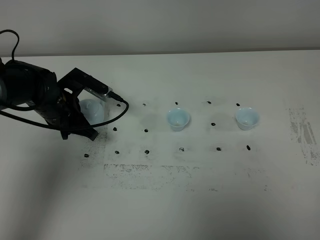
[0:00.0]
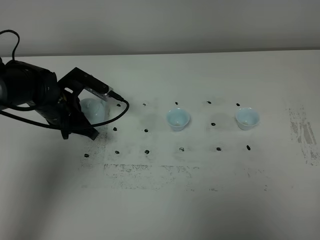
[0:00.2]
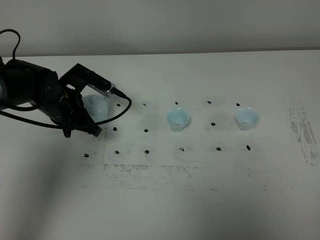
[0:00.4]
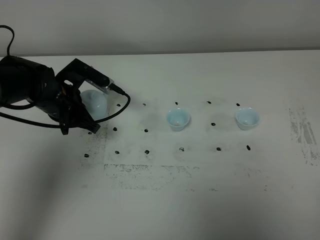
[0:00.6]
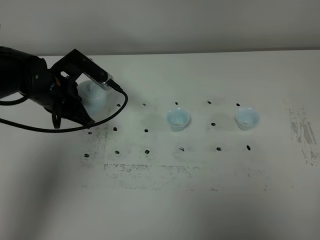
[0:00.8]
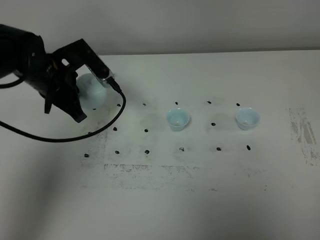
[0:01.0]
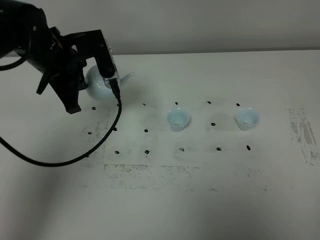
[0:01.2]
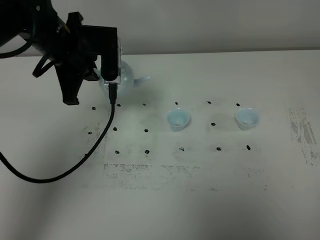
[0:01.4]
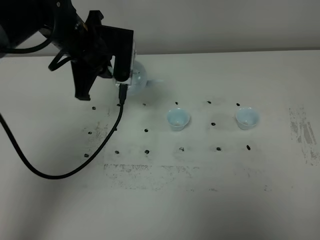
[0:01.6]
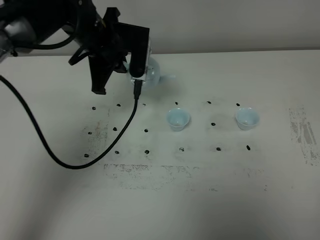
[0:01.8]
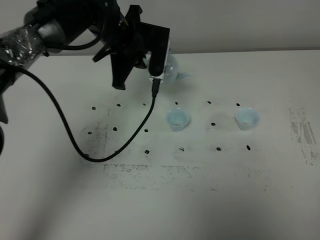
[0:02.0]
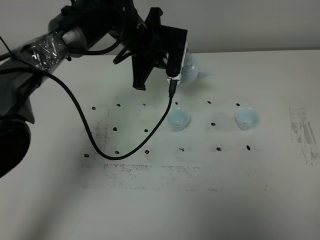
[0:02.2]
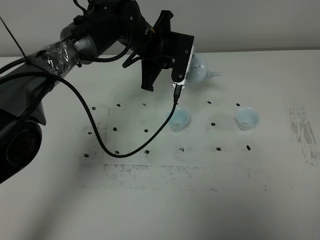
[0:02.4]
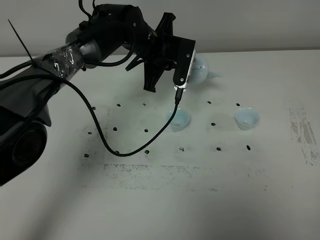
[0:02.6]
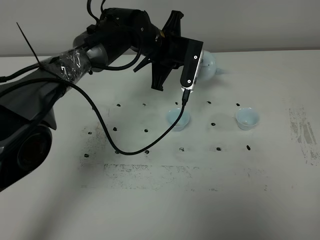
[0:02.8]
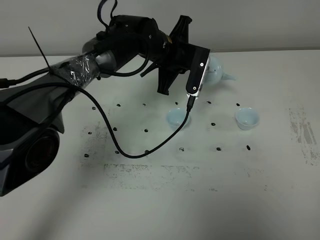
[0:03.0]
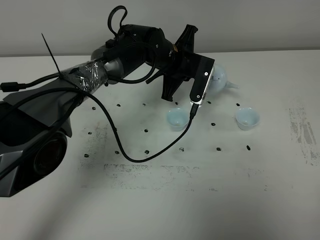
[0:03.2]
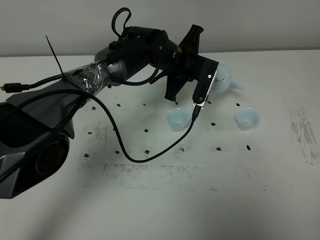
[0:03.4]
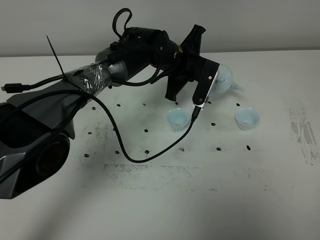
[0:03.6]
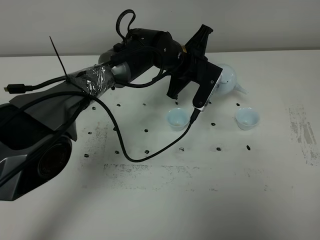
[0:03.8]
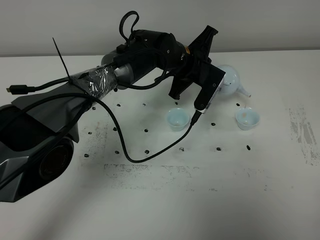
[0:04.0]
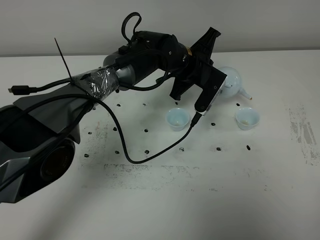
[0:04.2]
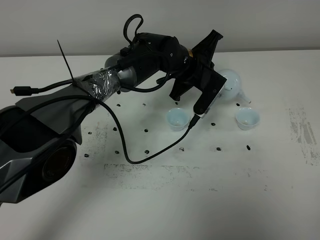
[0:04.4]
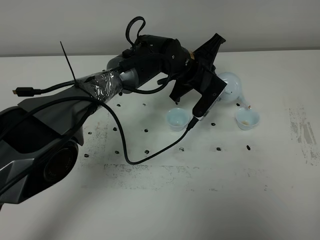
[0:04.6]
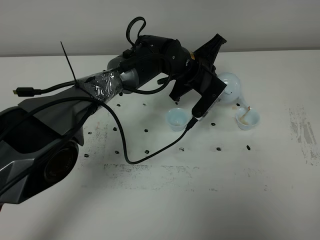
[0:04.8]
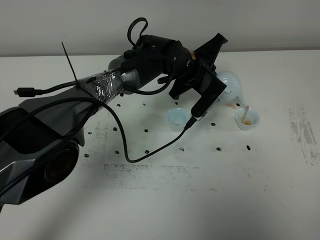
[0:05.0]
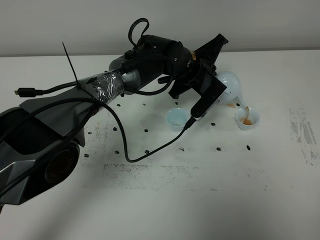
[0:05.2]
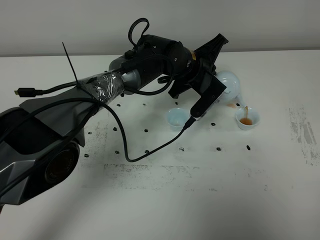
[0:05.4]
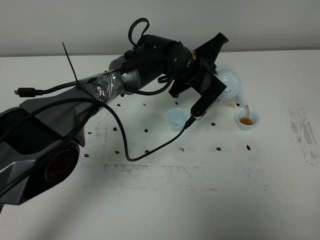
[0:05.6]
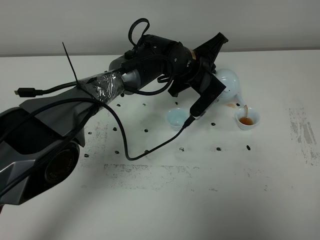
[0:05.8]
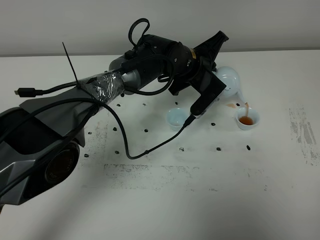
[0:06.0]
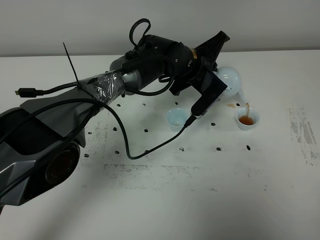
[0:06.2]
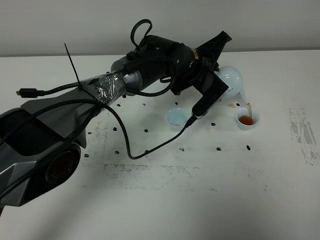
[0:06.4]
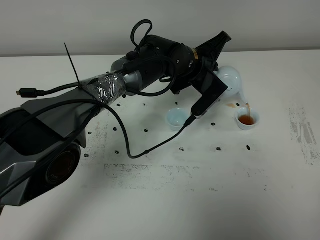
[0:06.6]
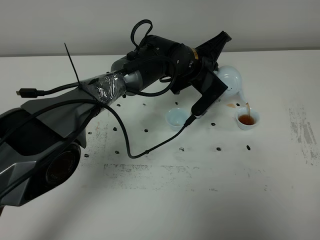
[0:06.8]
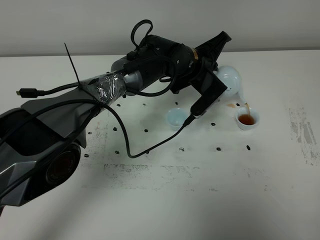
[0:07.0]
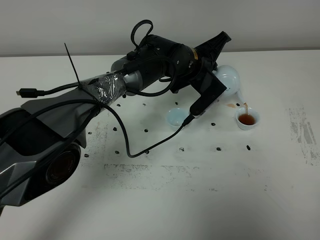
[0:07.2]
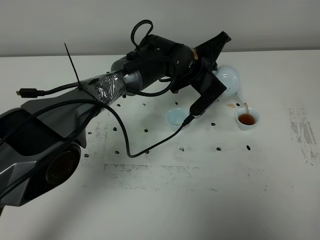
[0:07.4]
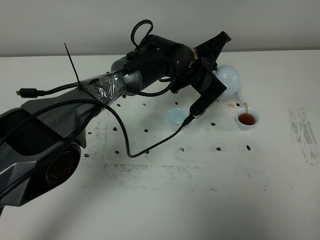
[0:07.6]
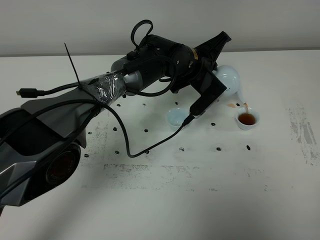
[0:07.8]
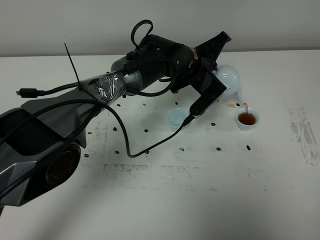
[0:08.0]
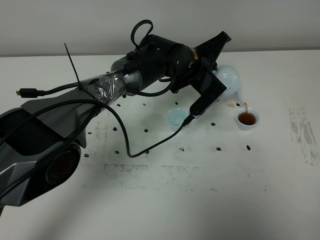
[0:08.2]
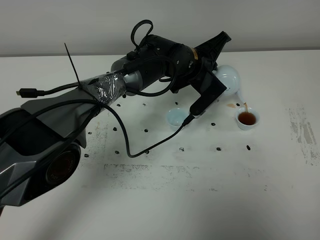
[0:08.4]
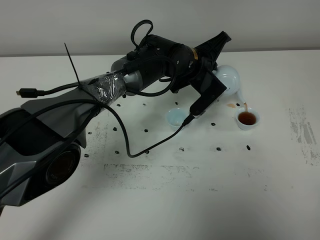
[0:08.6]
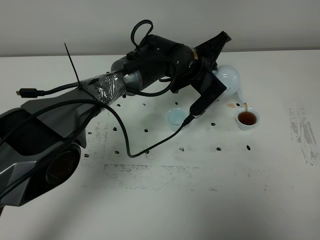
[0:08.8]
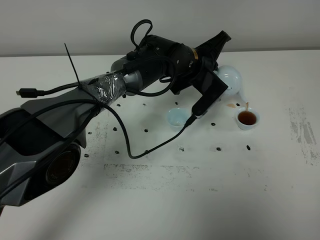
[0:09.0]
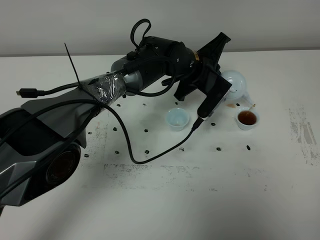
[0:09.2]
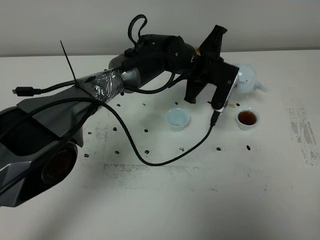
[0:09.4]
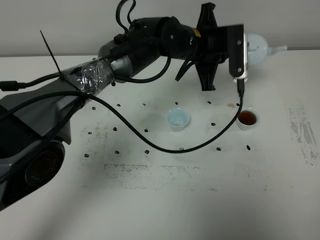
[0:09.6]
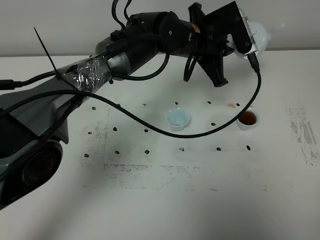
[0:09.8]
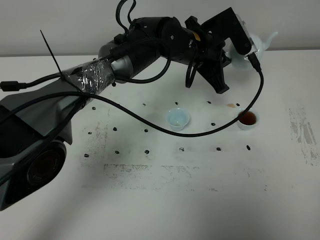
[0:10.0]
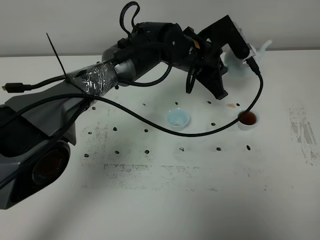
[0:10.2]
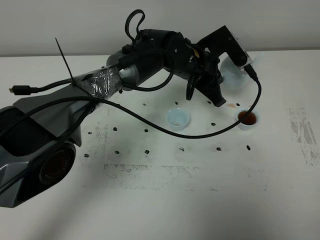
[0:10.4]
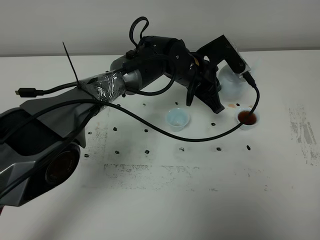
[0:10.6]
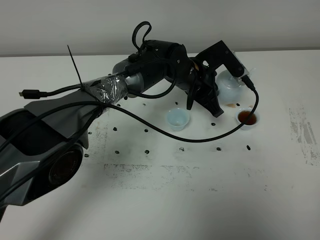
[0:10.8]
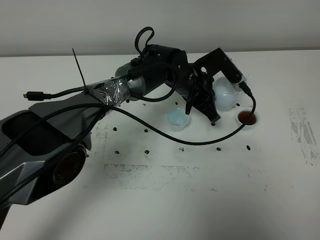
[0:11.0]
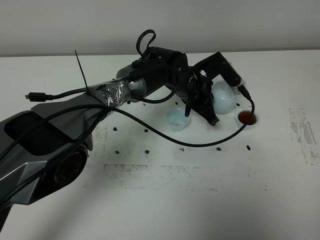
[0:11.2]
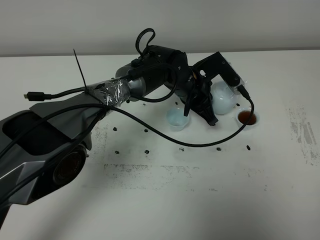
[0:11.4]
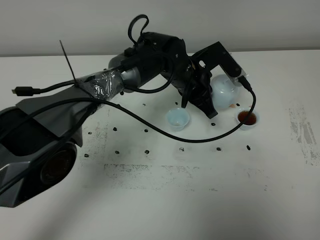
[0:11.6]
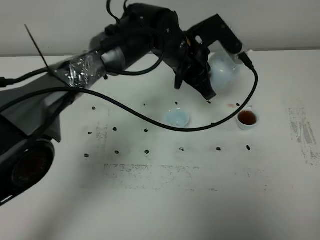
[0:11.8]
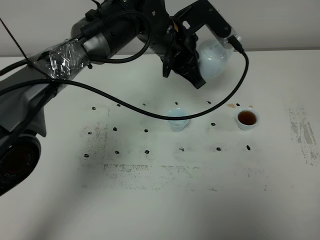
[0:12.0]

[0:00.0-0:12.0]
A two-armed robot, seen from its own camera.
Task of the whole recording: grasp the blue porcelain teapot and pour the tea into the two blue porcelain teacups one by one, put the blue porcelain teapot back in its original place.
0:00.0 to 0:01.6: The left gripper goes some 15 cm upward and to the right.
0:01.6 to 0:03.0: The left gripper is displaced to the right, downward and forward by some 15 cm.
0:04.4 to 0:06.0: The grippers make only small movements.
0:06.0 to 0:09.0: The two grippers keep their place.
0:10.4 to 0:12.0: The left gripper is displaced upward by approximately 5 cm.

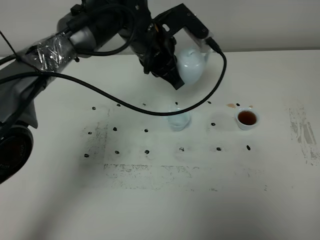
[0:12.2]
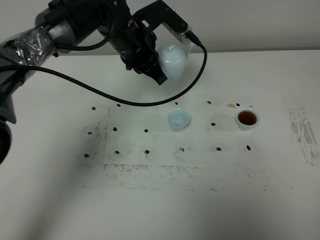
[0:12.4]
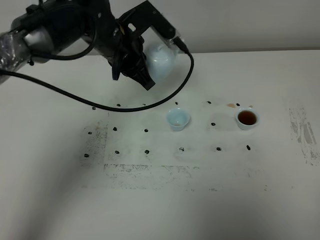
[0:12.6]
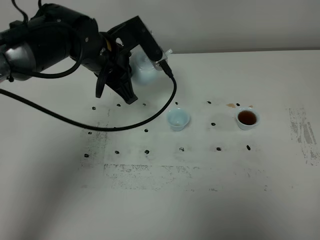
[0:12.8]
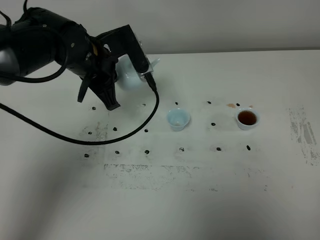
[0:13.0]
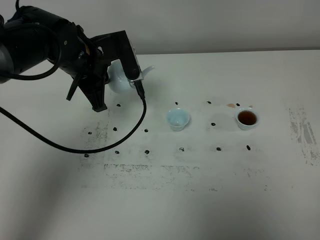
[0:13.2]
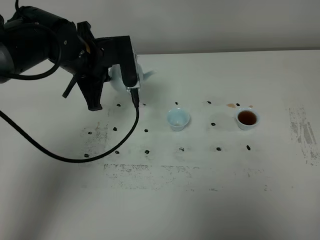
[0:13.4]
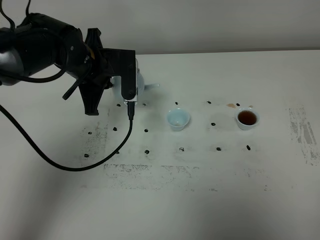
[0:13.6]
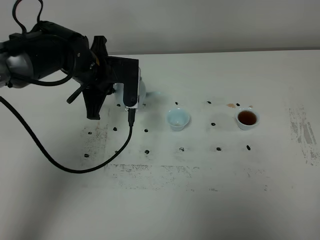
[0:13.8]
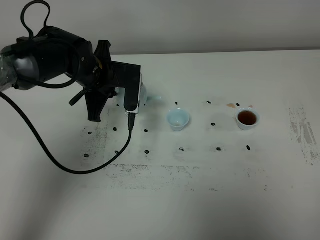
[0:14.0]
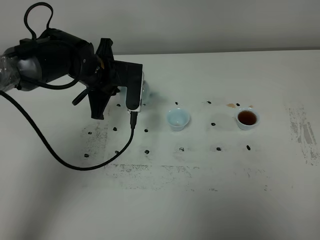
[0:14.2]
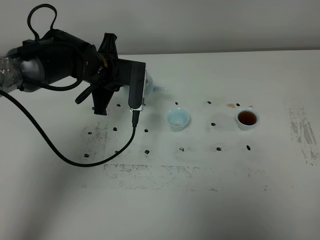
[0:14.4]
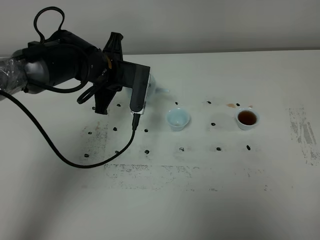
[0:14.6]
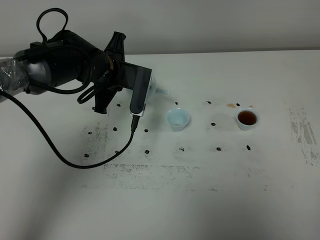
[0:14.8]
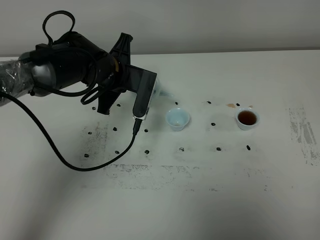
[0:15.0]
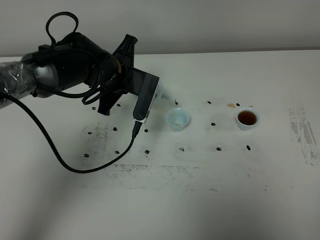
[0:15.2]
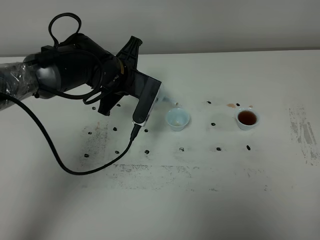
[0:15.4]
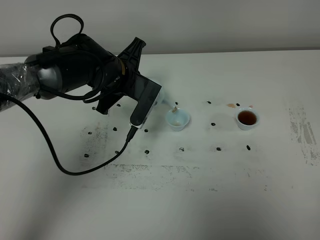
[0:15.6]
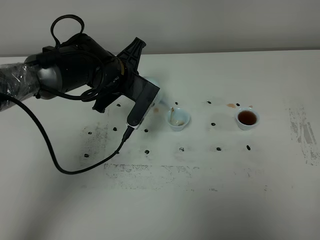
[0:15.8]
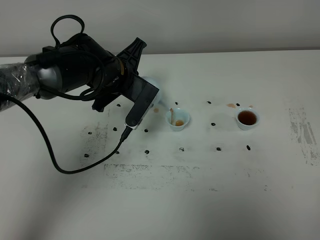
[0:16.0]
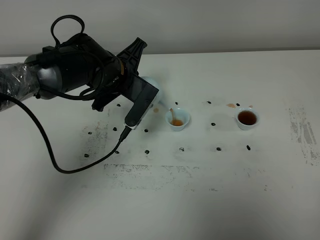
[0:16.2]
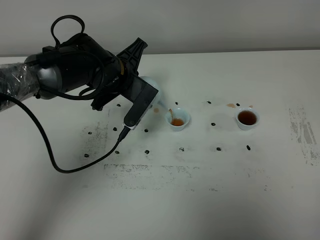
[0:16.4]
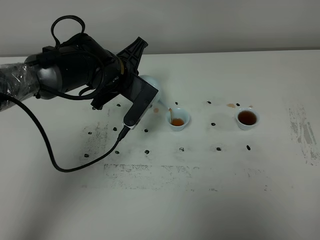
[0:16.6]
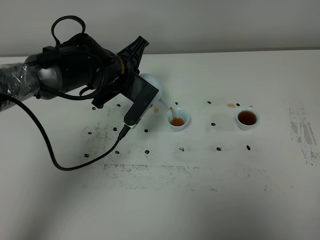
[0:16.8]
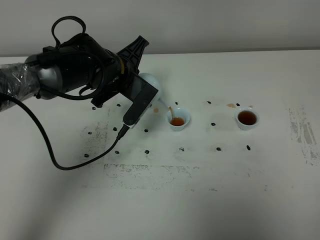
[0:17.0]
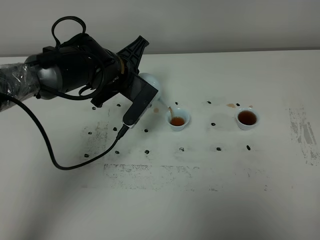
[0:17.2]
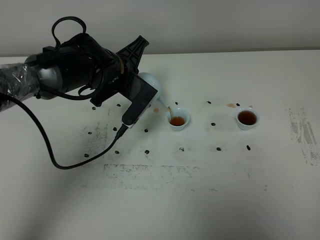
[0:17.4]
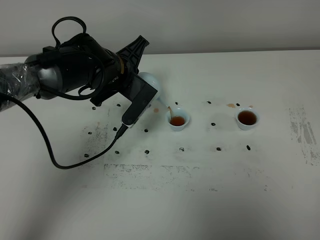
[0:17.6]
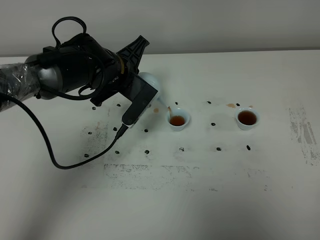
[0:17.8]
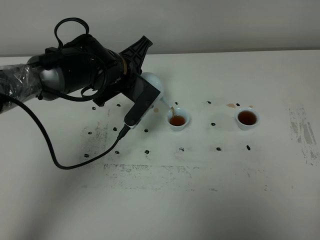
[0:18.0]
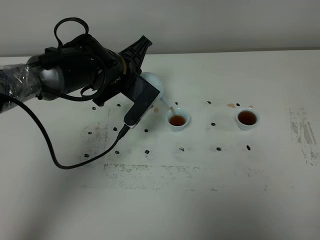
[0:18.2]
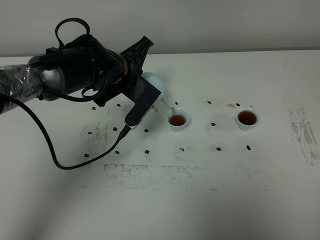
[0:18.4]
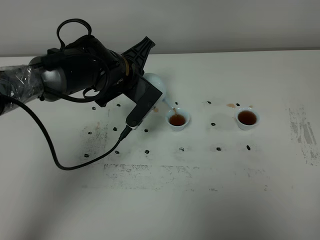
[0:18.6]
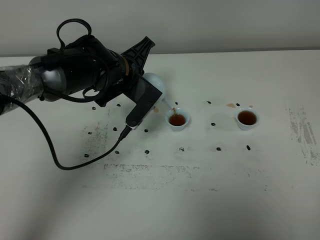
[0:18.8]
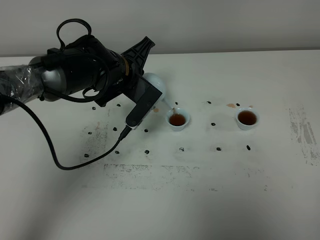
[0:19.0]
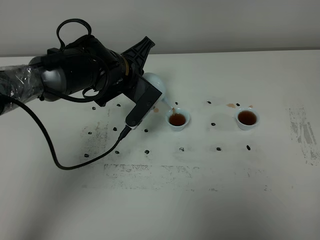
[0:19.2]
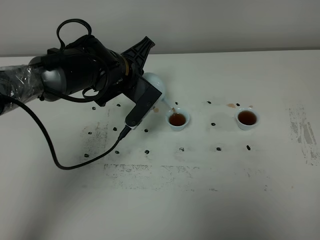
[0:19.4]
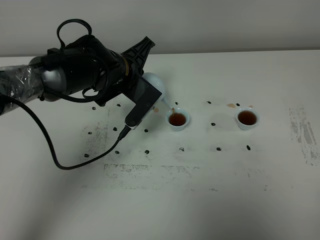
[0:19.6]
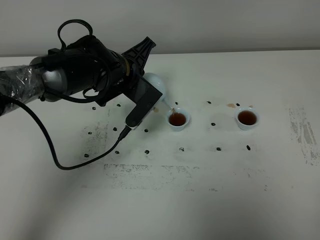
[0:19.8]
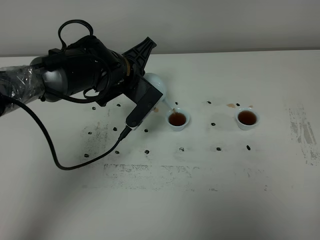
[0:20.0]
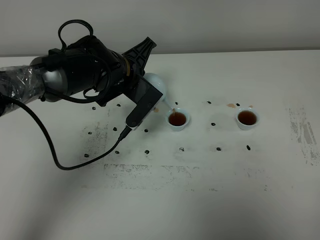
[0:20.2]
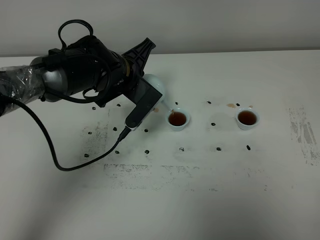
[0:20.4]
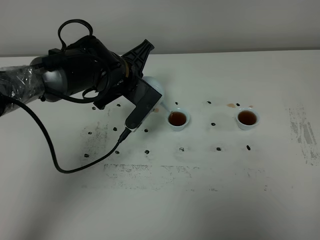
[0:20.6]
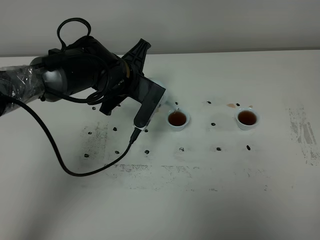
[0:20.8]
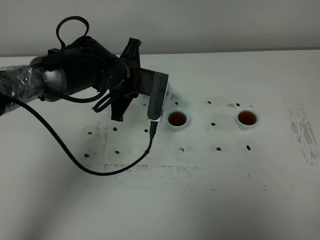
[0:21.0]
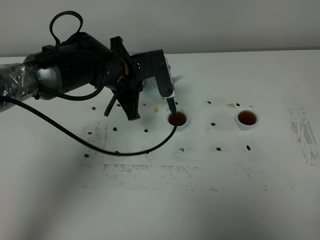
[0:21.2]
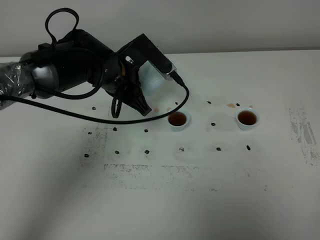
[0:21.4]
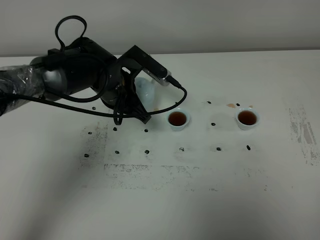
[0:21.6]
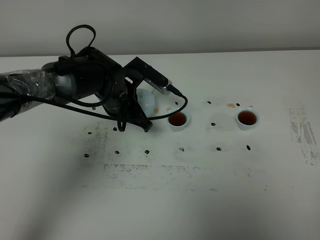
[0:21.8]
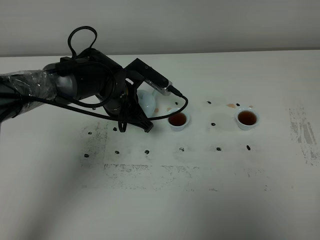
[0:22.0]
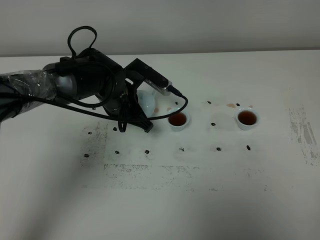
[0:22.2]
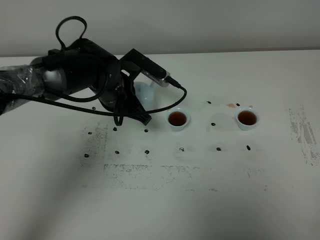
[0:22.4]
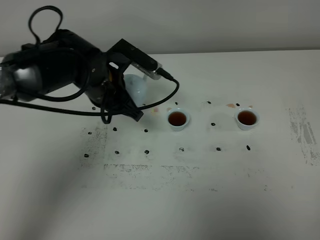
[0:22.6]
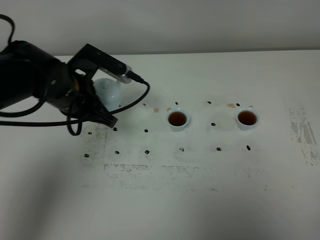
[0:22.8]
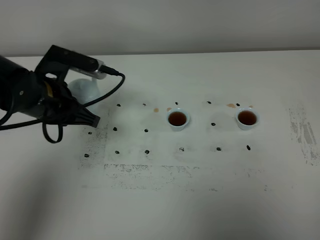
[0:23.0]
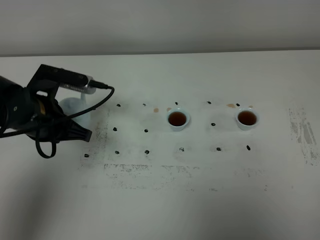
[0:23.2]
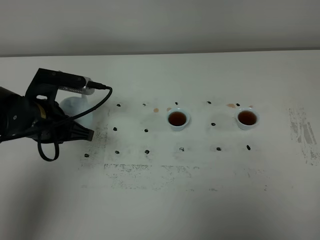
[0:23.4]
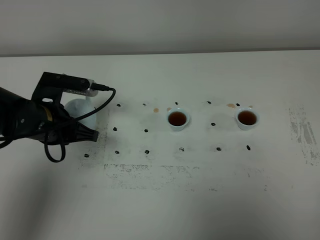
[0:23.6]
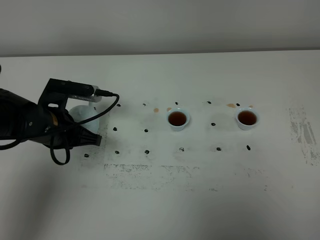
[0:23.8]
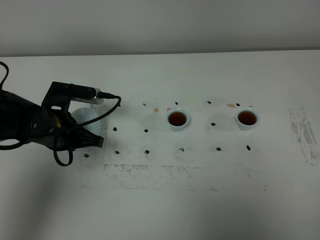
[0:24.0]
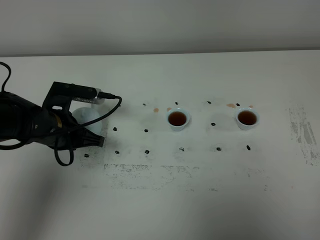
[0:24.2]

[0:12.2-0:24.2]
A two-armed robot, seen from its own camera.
Task of the whole recording: grasp the blue porcelain teapot and pour the tea into the two blue porcelain teacups one by one, put the blue porcelain teapot back in its original place.
Step, 0:12.2 to 0:21.0: Pour tea into the teacup with the left gripper.
0:12.2 to 0:13.8: The left gripper is displaced to the left by some 10 cm.
0:15.2 to 0:16.6: The grippers move only a little.
0:16.6 to 0:18.2: Both grippers stay about where they are.
0:18.2 to 0:19.8: Neither gripper changes place.
0:22.6 to 0:24.2: The left gripper moves to the left and downward, approximately 10 cm.
